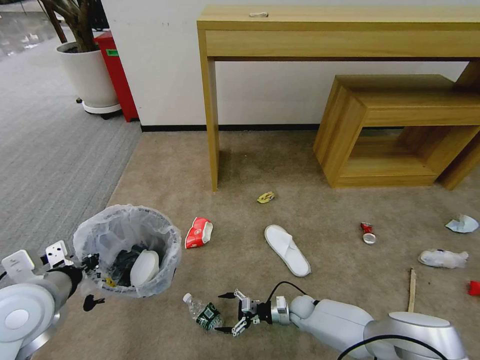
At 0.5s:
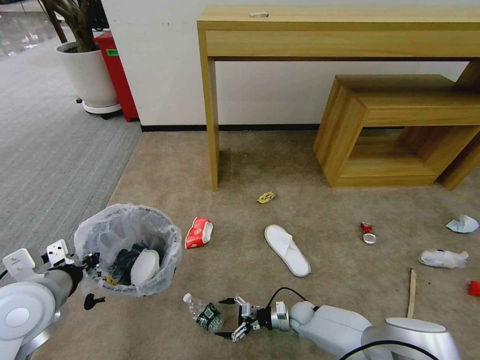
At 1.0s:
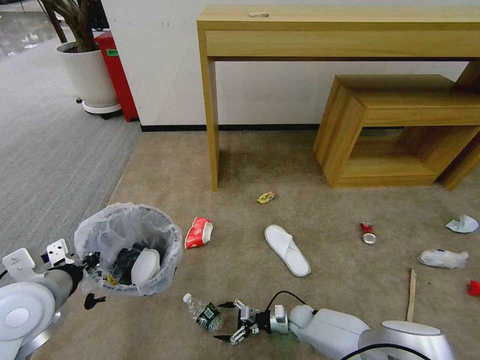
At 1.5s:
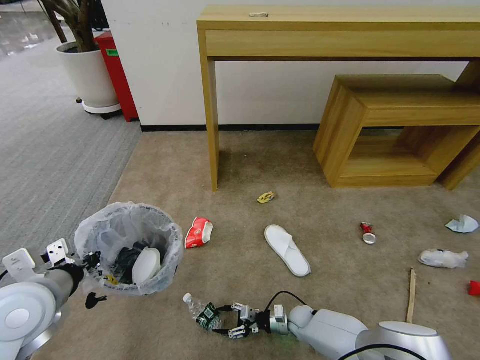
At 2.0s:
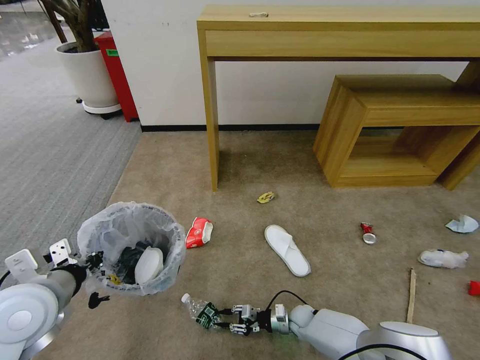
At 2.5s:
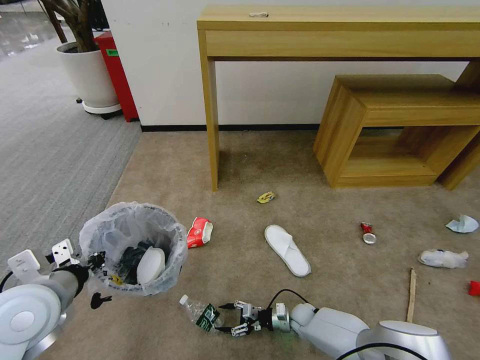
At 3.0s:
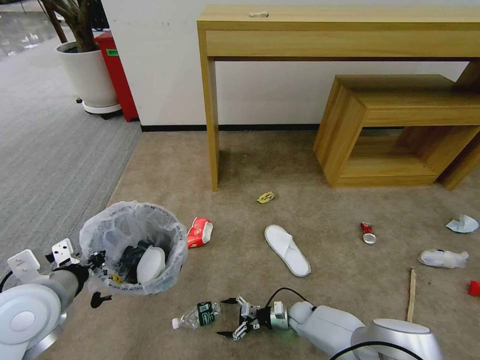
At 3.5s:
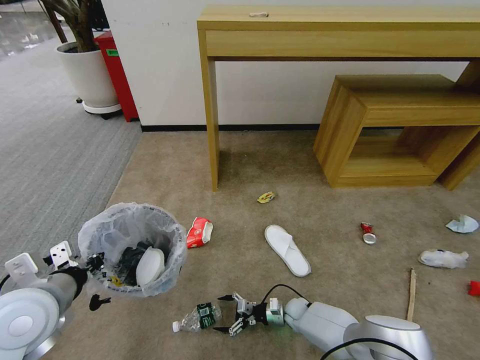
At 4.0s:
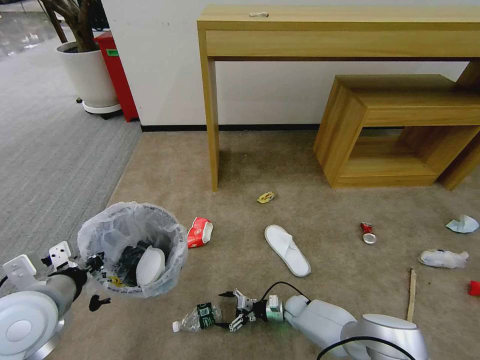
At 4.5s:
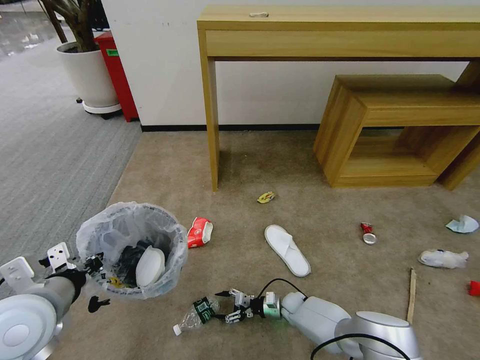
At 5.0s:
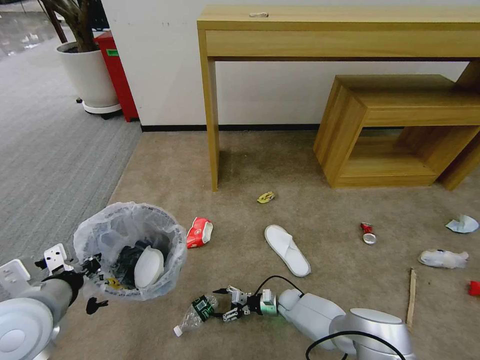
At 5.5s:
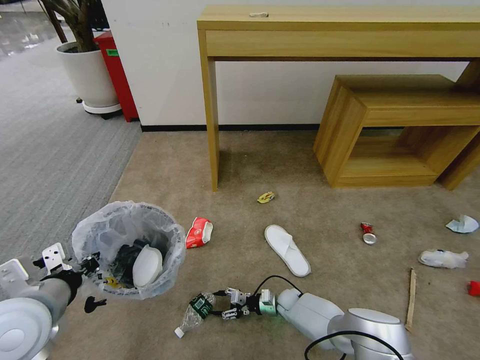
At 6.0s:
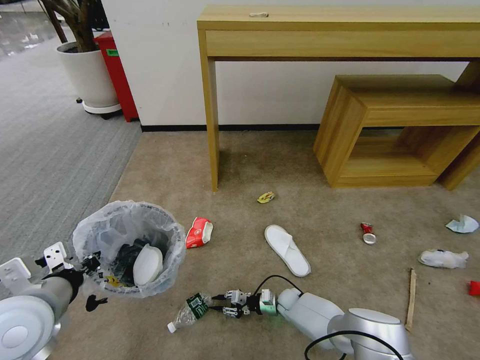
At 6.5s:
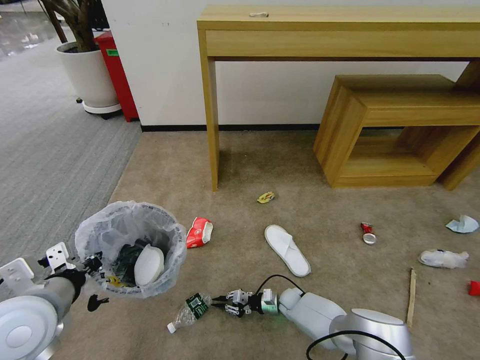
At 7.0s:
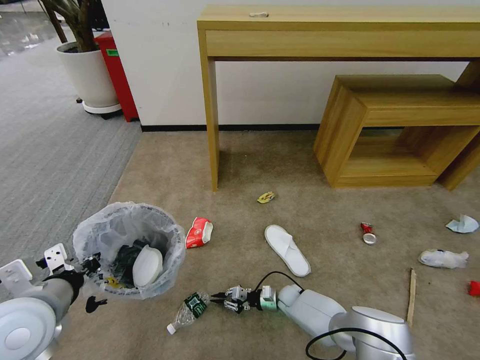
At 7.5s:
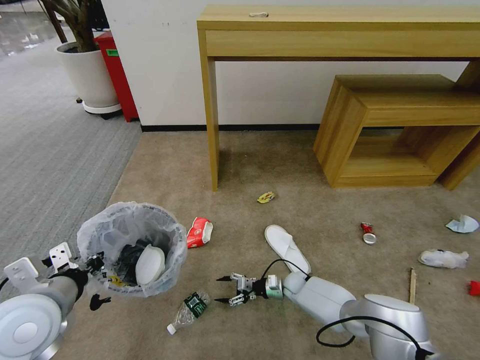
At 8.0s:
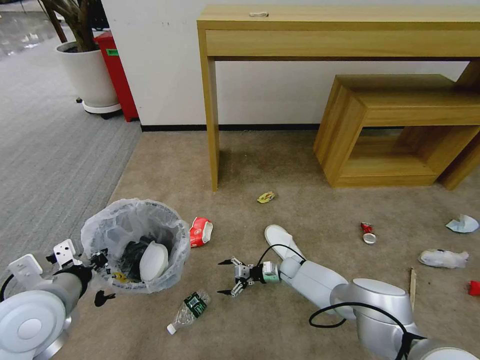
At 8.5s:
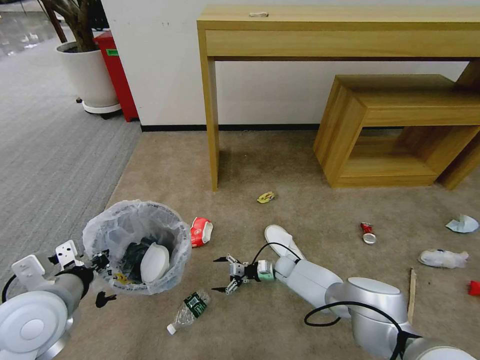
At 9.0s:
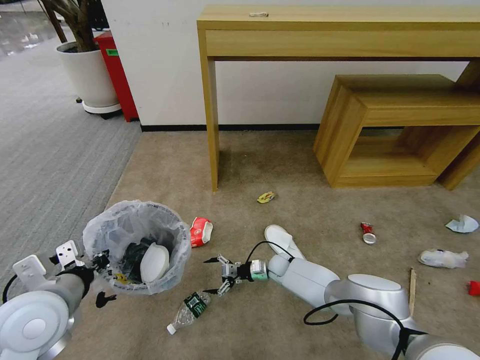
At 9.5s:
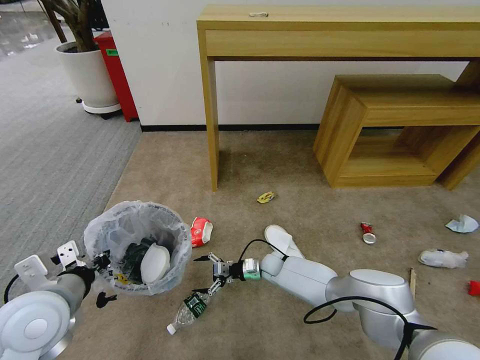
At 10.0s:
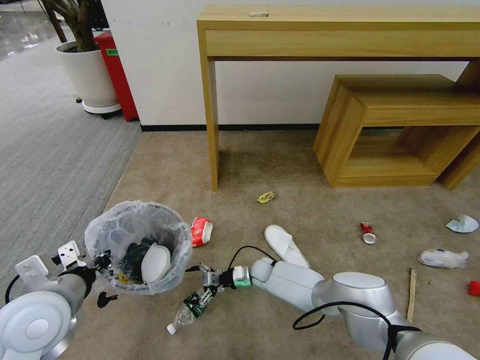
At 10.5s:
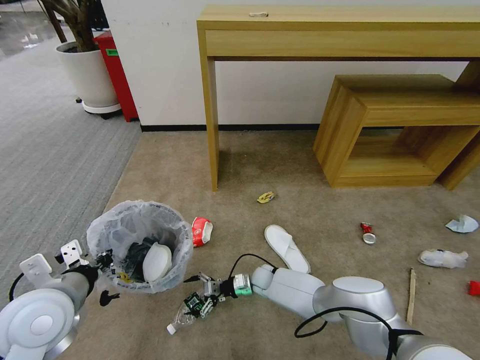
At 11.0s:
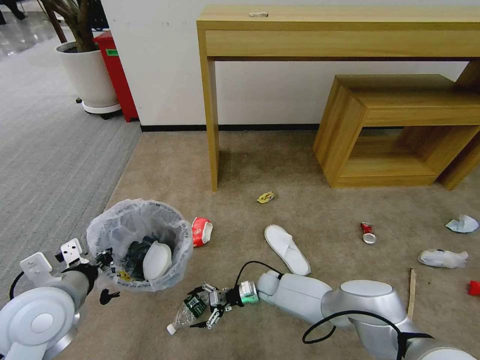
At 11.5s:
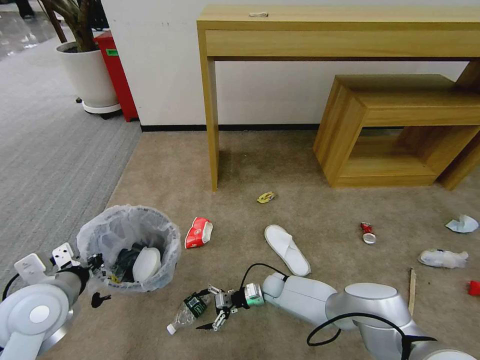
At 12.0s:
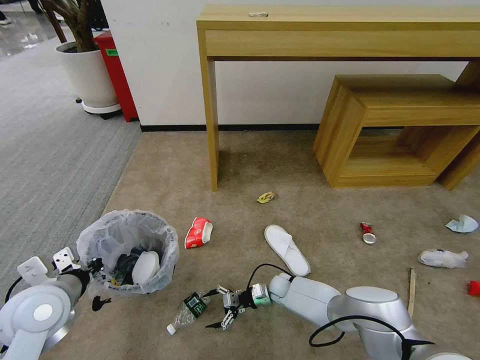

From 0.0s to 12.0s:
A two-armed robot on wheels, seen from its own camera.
Task of the whole recording: Pick up the trash bin and place the garbage on the floor into it.
From 0.0s to 2.0s: The right gripper closes up.
From 2.0s to 4.0s: The right gripper opens.
From 4.0s to 6.0s: The right gripper closes its fingers.
From 6.0s to 8.0s: The right gripper goes roughly 10 cm forward and upward, and opens.
From 8.0s to 10.0s: The right gripper moves to the left, about 10 cm.
From 10.0s to 12.0s: The right gripper goes about 5 cm to the right, while the left gripper ends up some 5 cm from where it was.

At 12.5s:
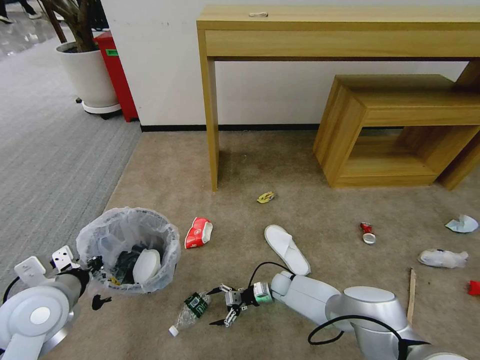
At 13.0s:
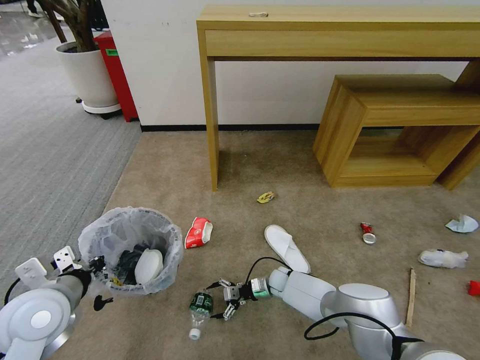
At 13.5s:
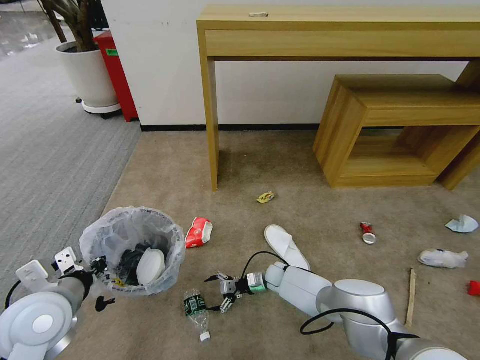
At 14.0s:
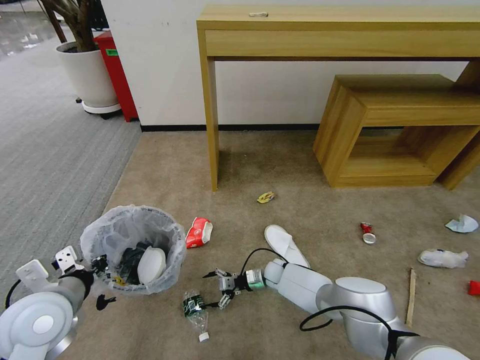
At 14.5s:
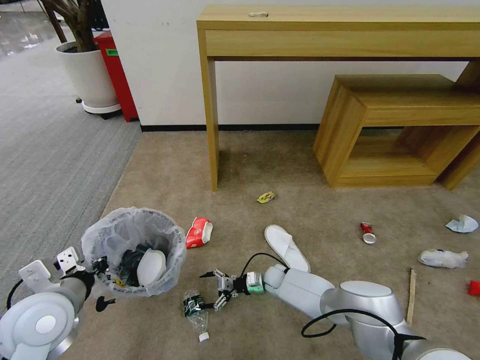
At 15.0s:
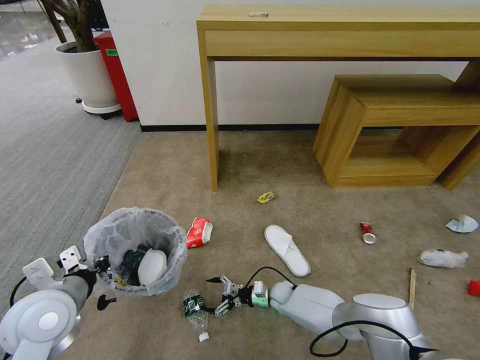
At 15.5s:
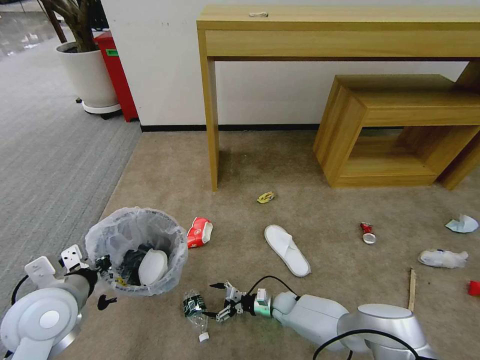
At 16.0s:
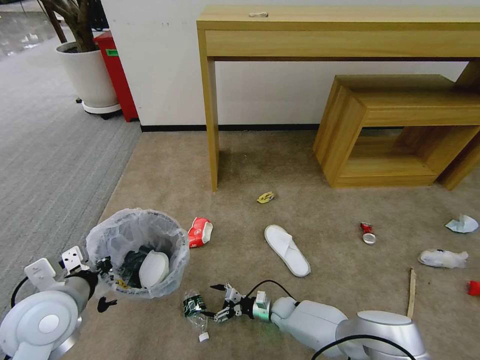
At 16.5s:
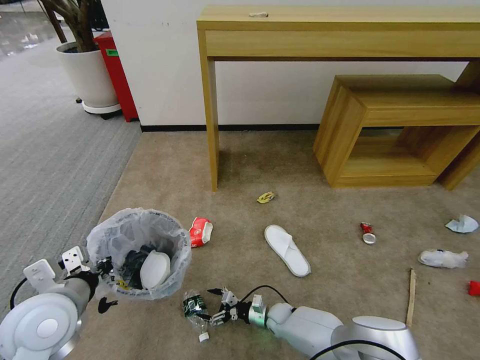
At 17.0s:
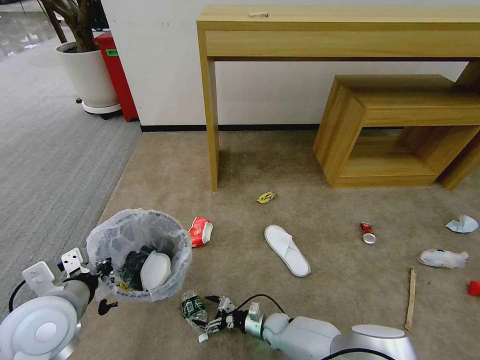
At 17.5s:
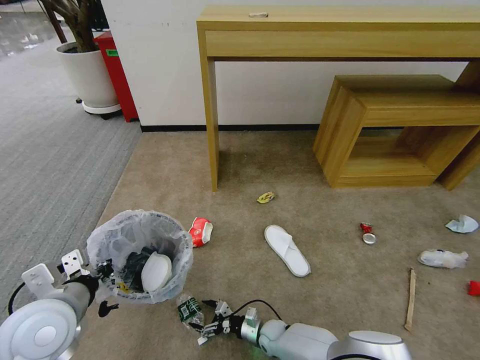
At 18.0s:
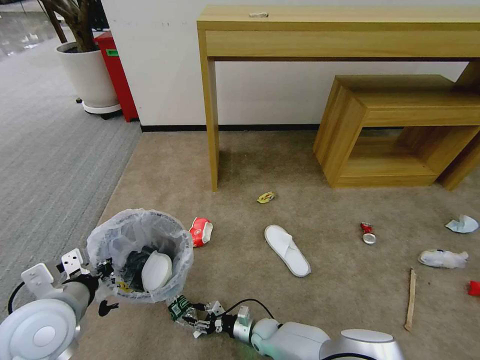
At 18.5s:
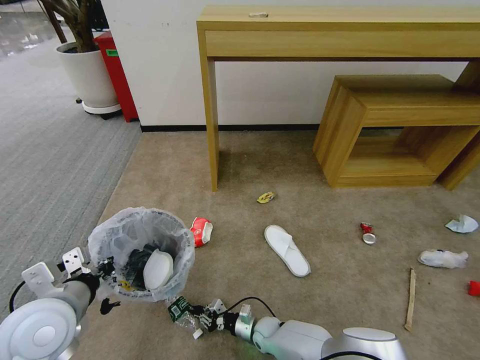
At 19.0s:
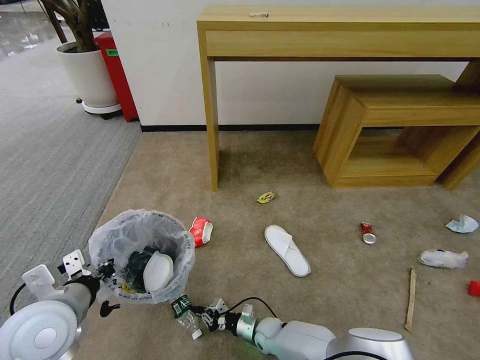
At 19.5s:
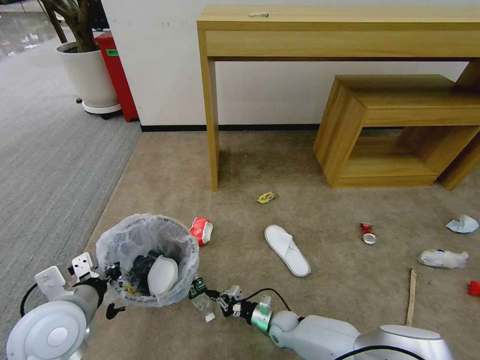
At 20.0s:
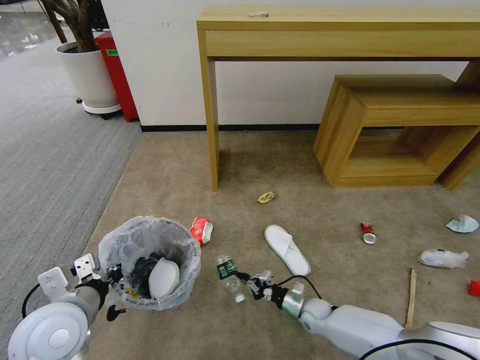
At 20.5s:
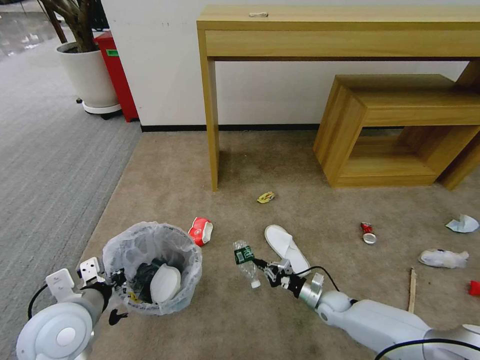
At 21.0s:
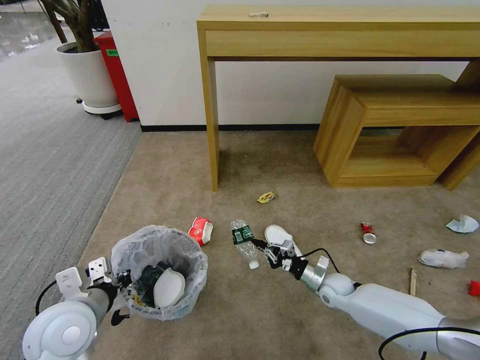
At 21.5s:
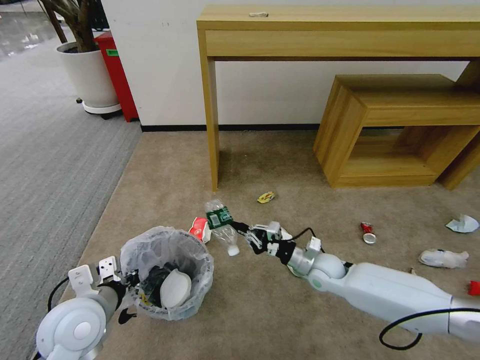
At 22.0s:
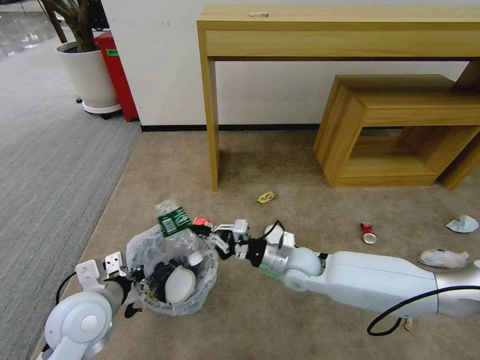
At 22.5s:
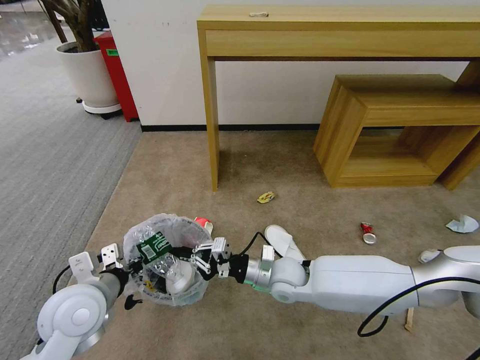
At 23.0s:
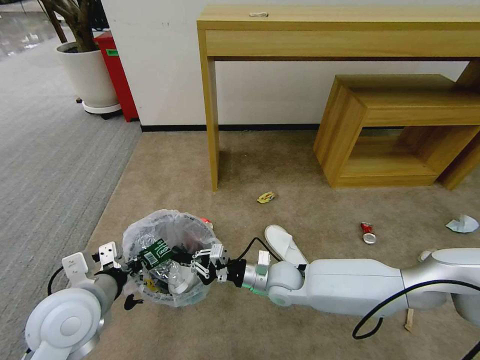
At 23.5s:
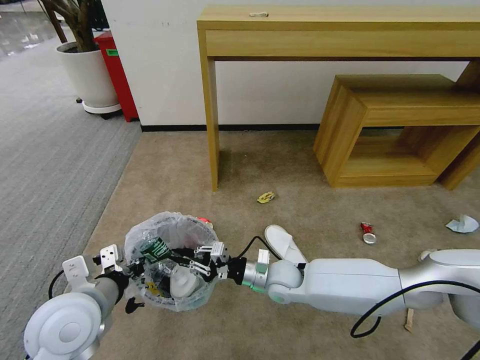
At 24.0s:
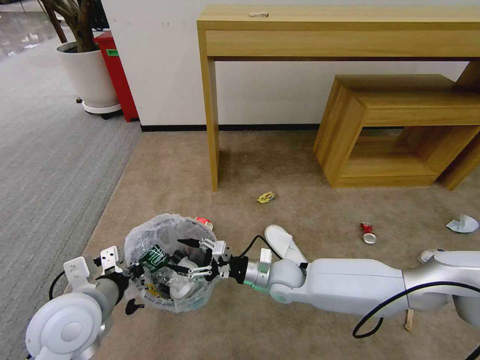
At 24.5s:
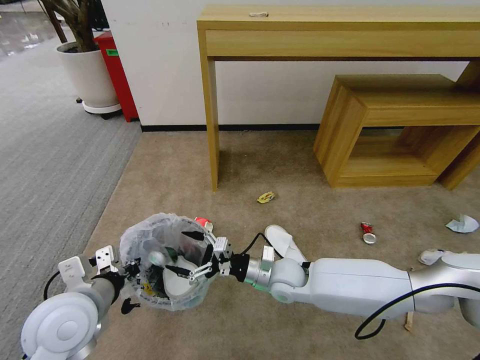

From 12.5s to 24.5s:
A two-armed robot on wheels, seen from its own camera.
Task of the whole recording: Pick up the trash bin and place the garbage on the floor into it.
From 12.5s to 14.5s: The grippers make only small movements.
From 14.5s to 16.5s: The right gripper goes some 10 cm backward and downward.
From 16.5s to 18.5s: The right gripper shifts by approximately 5 cm, and closes up.
From 18.5s to 20.5s: The right gripper shifts approximately 20 cm to the right and upward.
From 20.5s to 22.5s: The right gripper goes about 25 cm upward and to the left.
From 22.5s to 24.5s: The right gripper opens up.

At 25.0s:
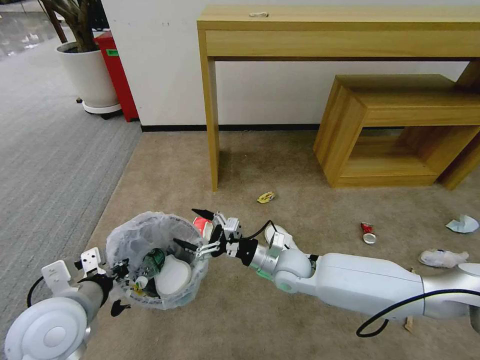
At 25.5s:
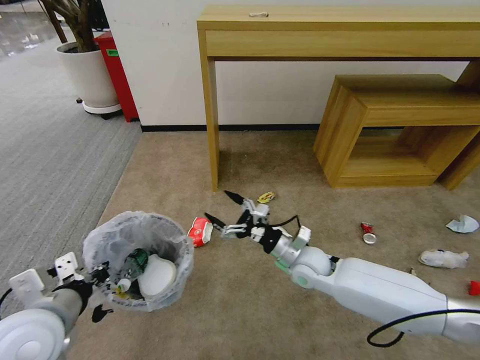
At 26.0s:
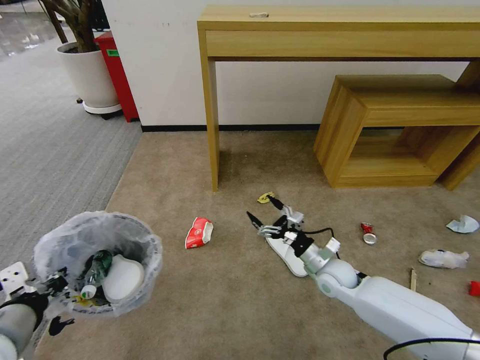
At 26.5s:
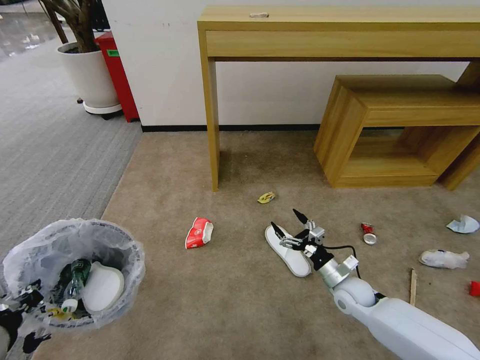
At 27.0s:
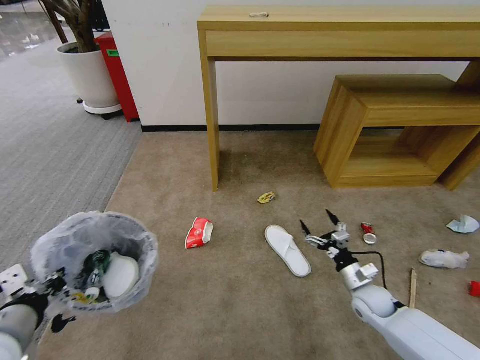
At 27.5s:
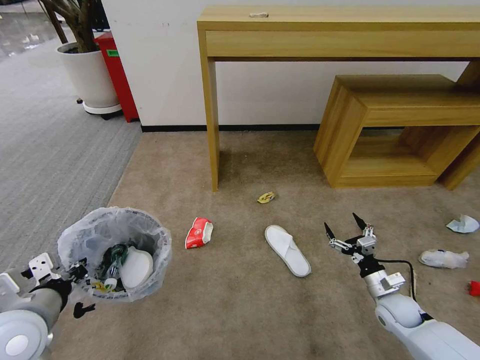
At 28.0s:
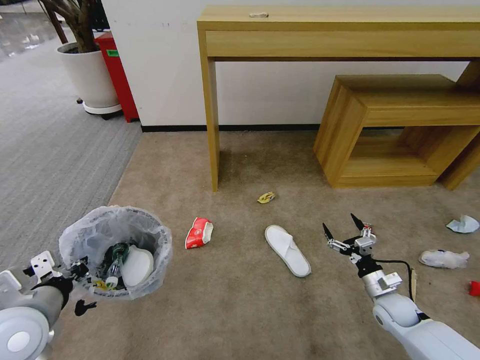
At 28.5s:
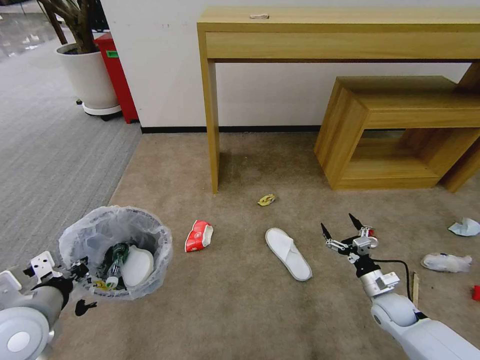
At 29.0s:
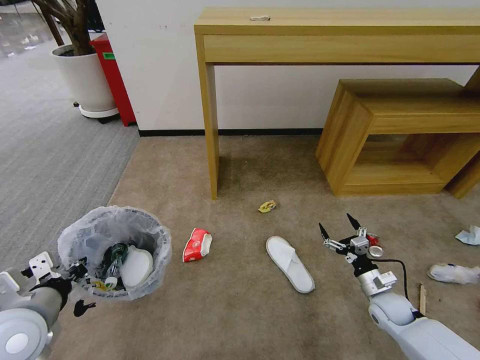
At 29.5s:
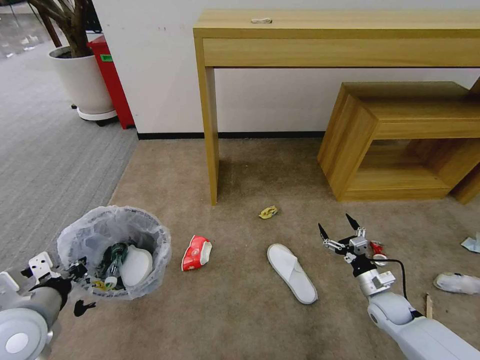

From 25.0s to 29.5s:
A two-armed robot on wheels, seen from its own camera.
Task of the whole recording: Pick up the trash bin and place the garbage on the floor into it.
From 25.0s to 27.0s: The right gripper shifts some 25 cm to the right and downward. Meanwhile the left gripper shifts some 5 cm to the left.
